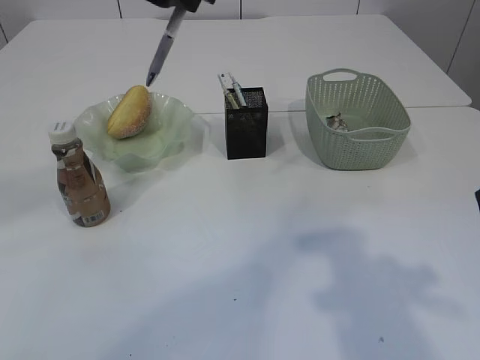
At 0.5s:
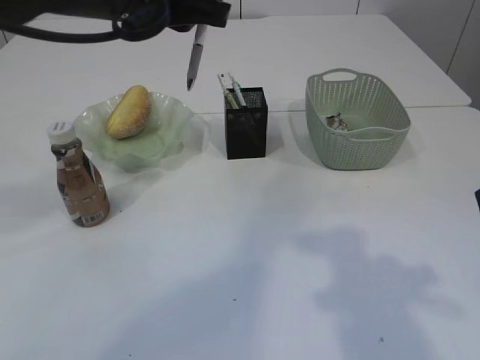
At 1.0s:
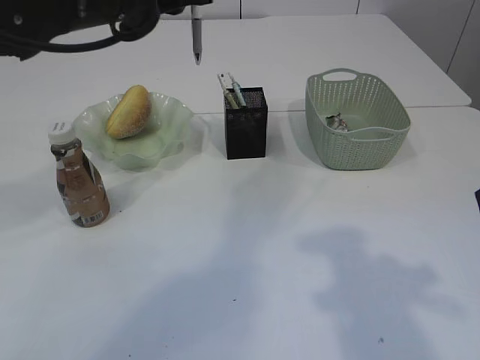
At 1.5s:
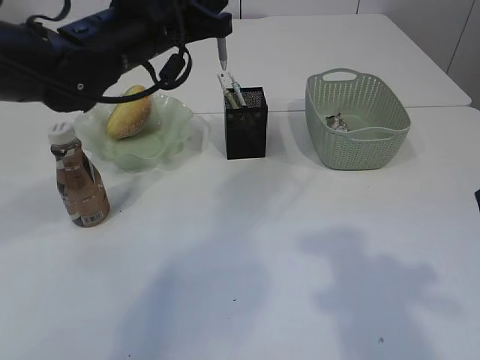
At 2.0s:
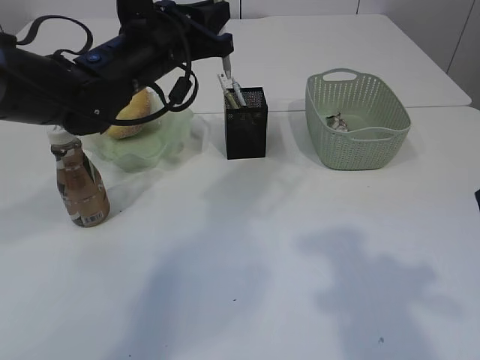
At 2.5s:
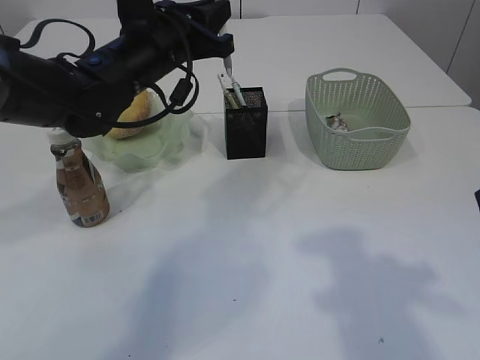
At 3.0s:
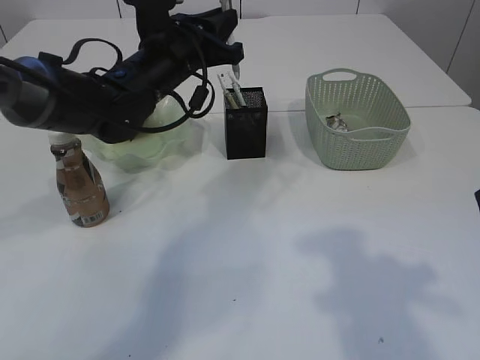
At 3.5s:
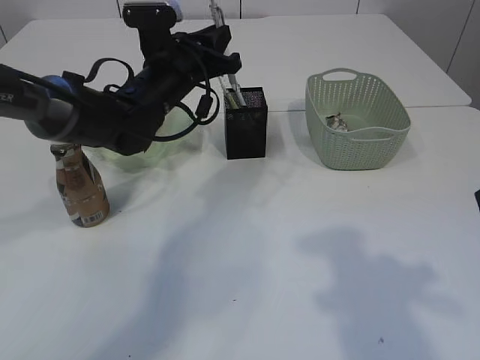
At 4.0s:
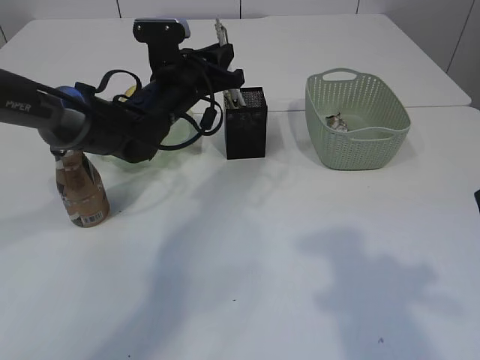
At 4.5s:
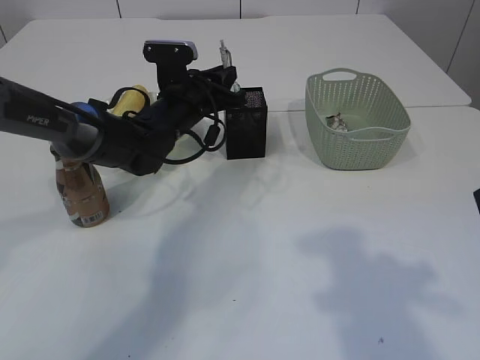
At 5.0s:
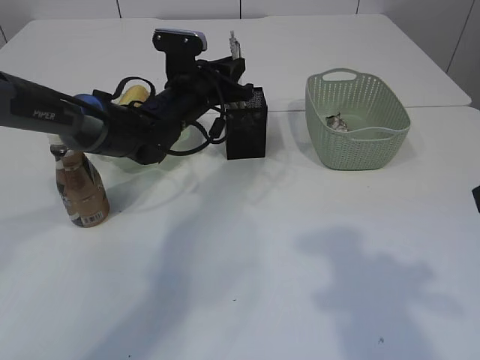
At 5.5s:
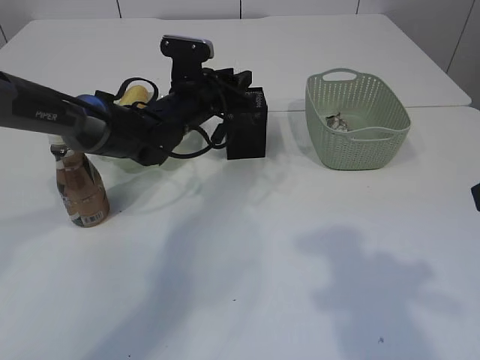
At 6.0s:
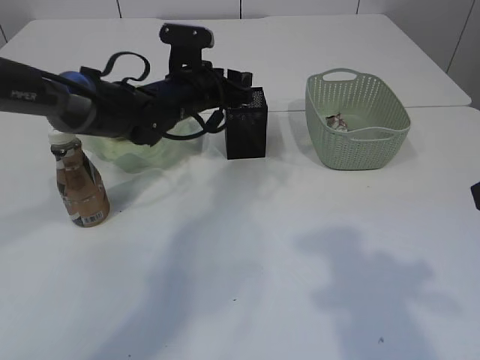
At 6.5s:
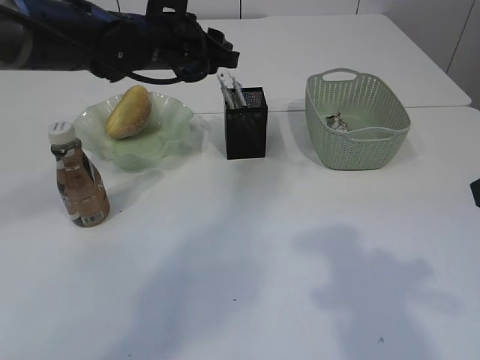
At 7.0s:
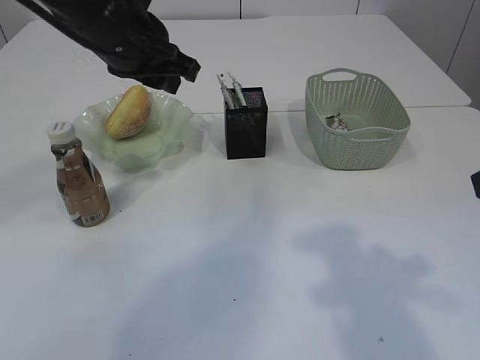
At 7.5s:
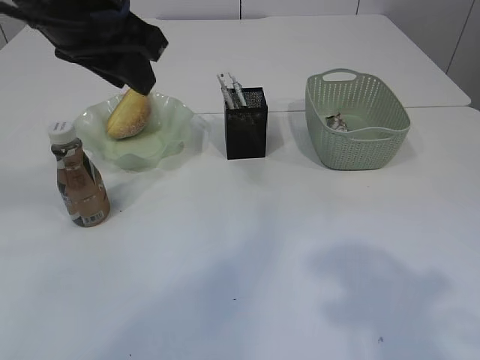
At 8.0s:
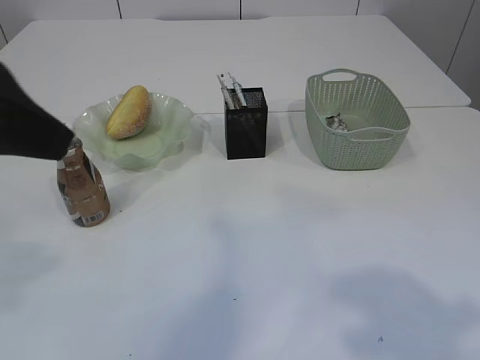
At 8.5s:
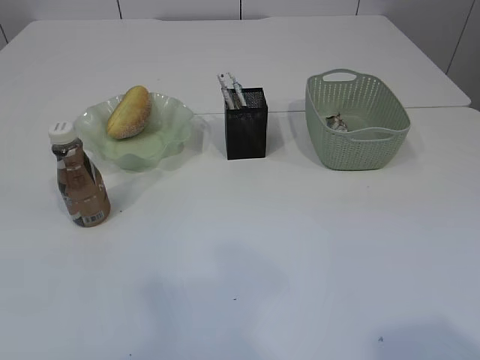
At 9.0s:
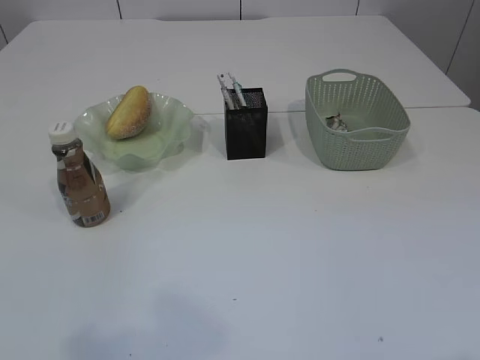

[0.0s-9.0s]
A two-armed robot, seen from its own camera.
Step, 0.0s to 6.0s: Place the pen into the pen holder.
0.0s to 2.0s: The left gripper moves downward and forward, roughly 15 cm.
2.0s to 4.5s: The left gripper is displaced downward and forward by some 10 cm.
4.5s to 7.0s: The left gripper moves upward and backward, approximately 15 cm, and opens and closes again.
7.0s to 9.0s: The right gripper moves backward, roughly 15 cm. Meanwhile the left gripper goes about 40 cm backward and to the left.

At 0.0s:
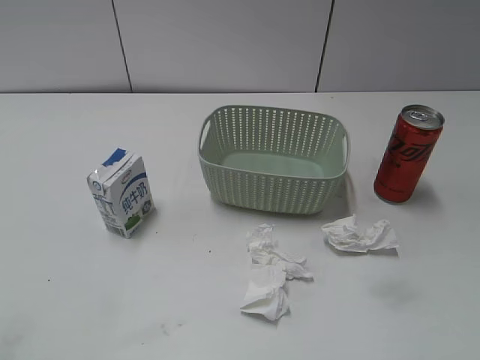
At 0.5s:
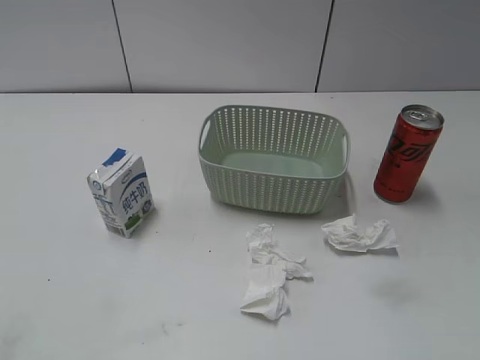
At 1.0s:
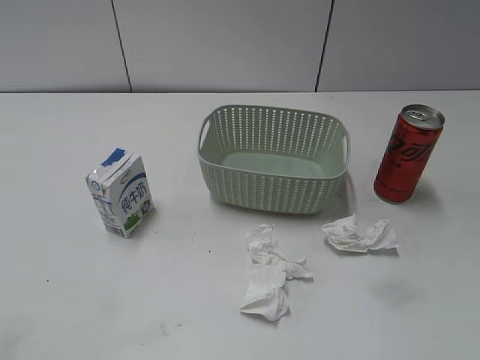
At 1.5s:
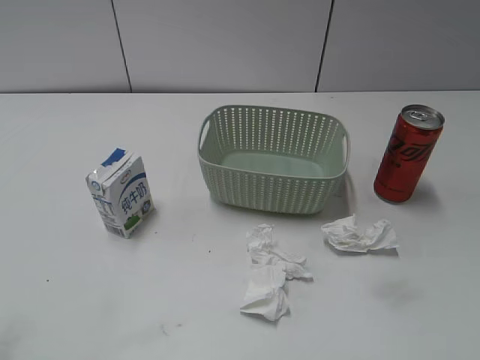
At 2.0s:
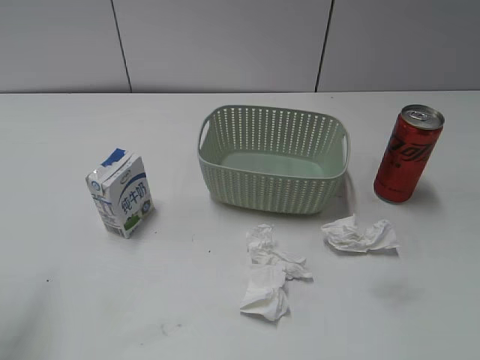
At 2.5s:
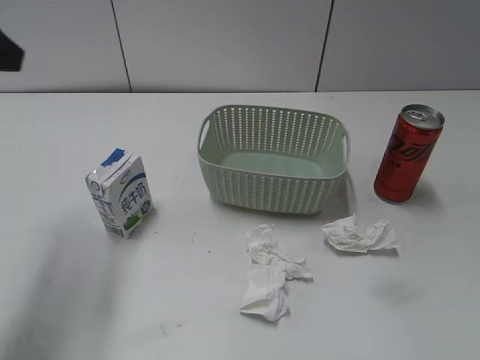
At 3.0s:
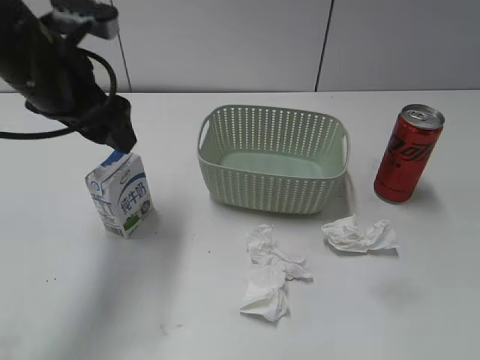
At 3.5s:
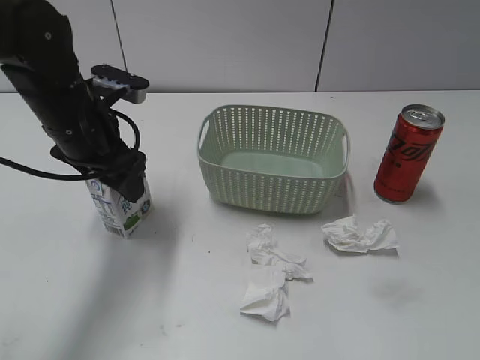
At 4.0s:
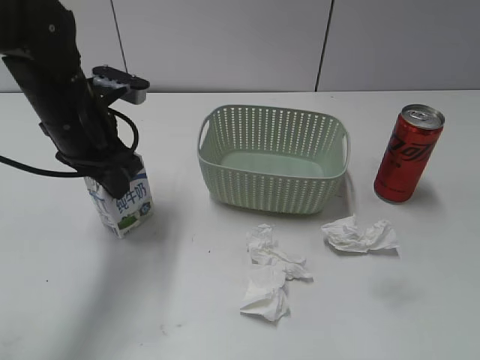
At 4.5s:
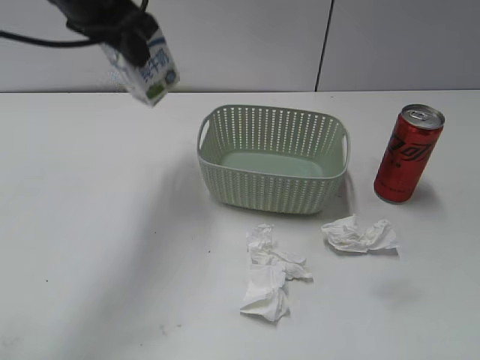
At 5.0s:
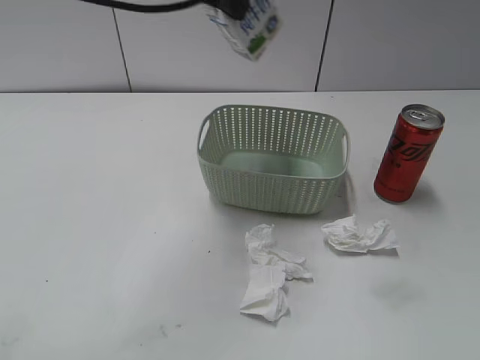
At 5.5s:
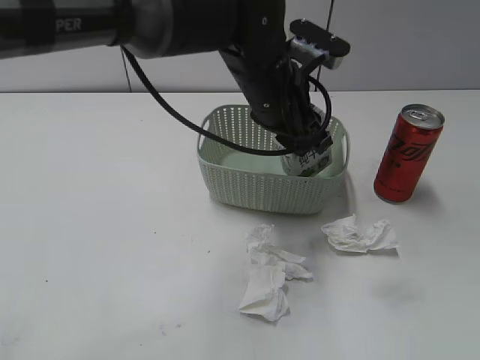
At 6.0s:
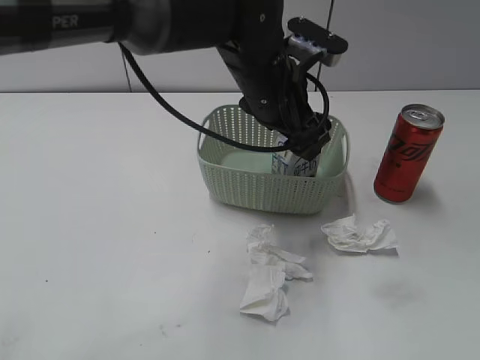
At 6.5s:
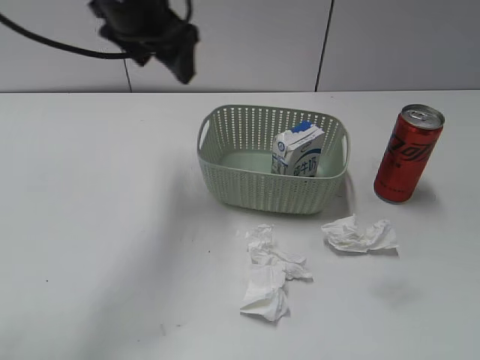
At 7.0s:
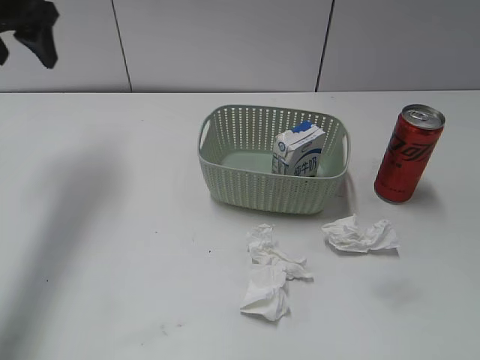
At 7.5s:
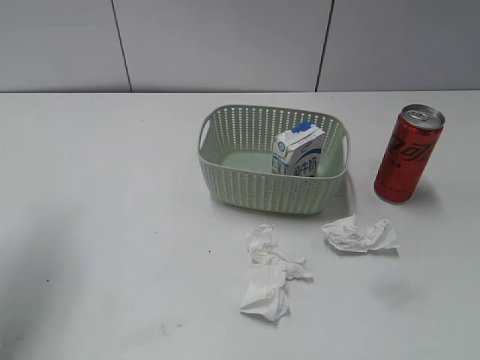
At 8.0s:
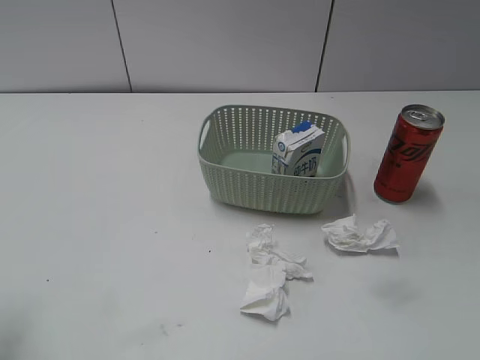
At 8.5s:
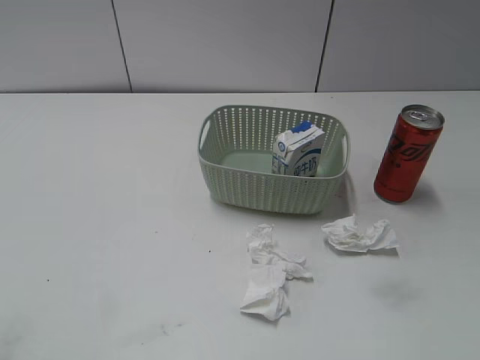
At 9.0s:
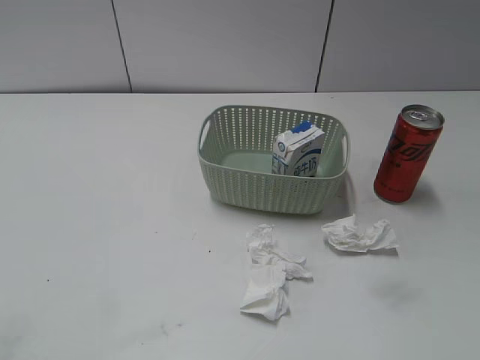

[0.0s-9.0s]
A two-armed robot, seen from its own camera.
Step, 2.5s to 3.5s: Grasp the milk with left gripper.
Step, 4.0s to 6.0s: Place the milk in the basket with left gripper.
2.0s to 4.5s: The left gripper travels forward and to the right by some 30 cm, and closes its fingers.
4.5s to 7.0s: The left gripper heads to the left, covering about 10 cm, and opens.
7.0s to 9.0s: The left gripper heads backward, covering roughly 40 cm.

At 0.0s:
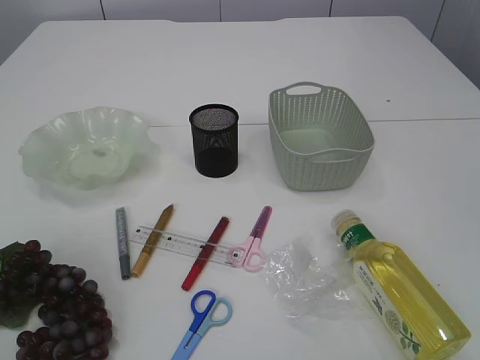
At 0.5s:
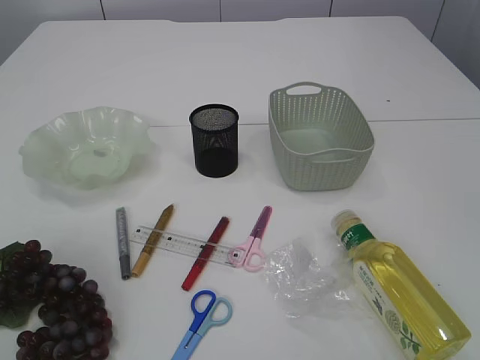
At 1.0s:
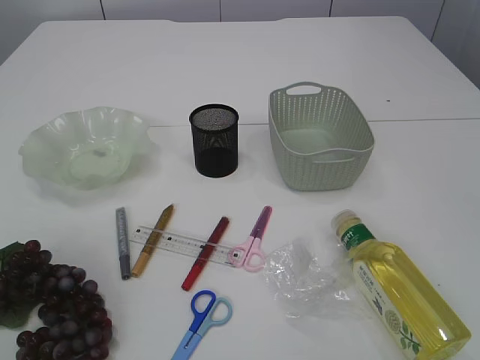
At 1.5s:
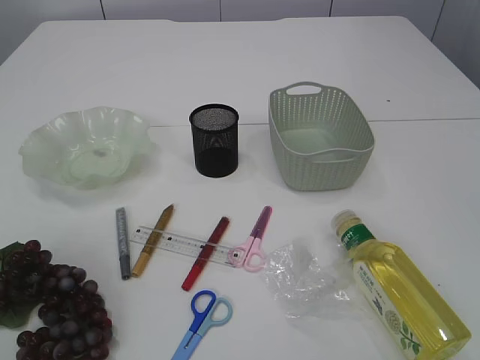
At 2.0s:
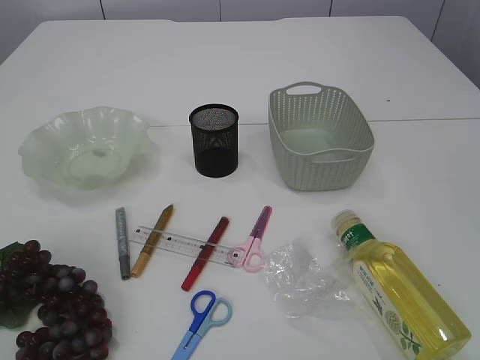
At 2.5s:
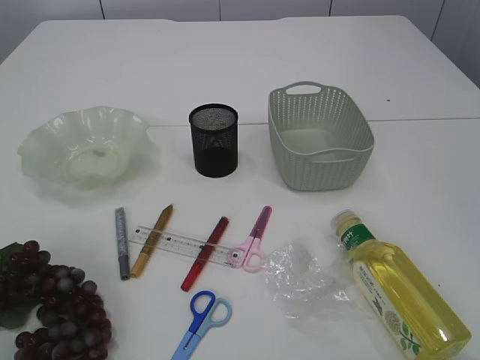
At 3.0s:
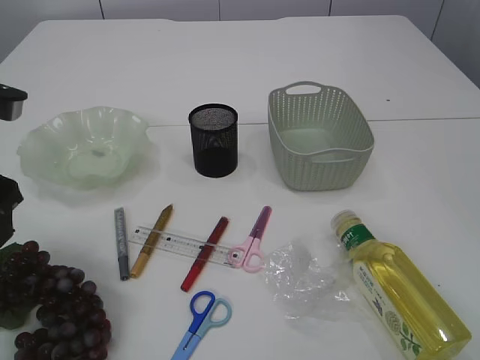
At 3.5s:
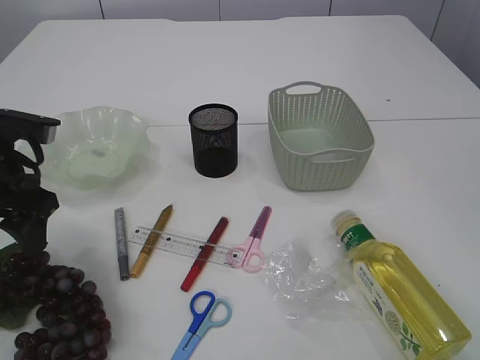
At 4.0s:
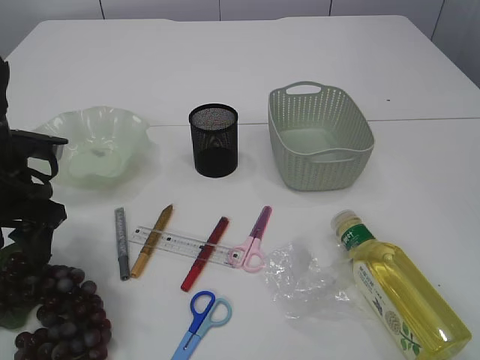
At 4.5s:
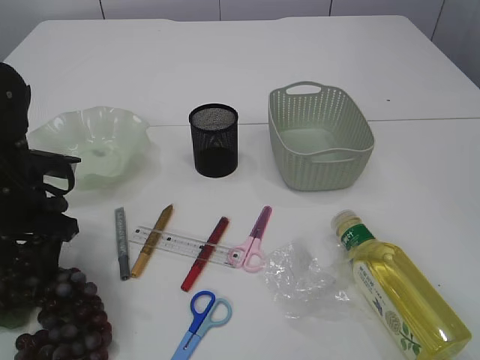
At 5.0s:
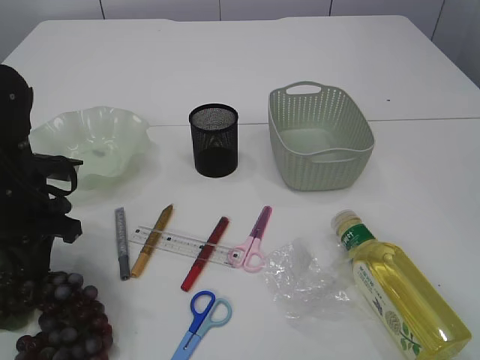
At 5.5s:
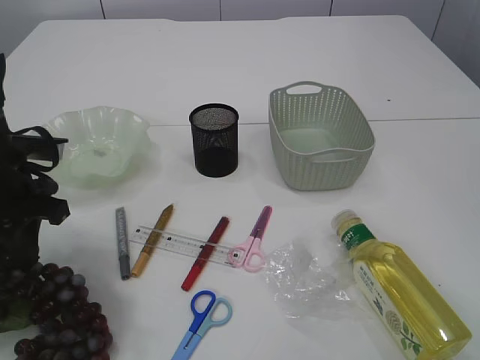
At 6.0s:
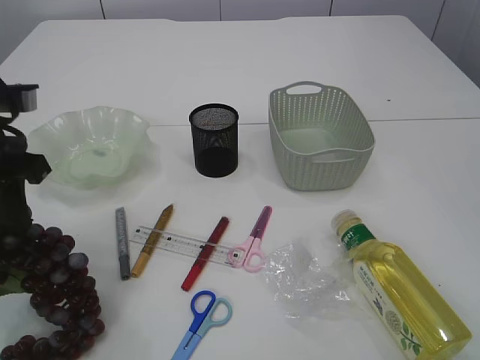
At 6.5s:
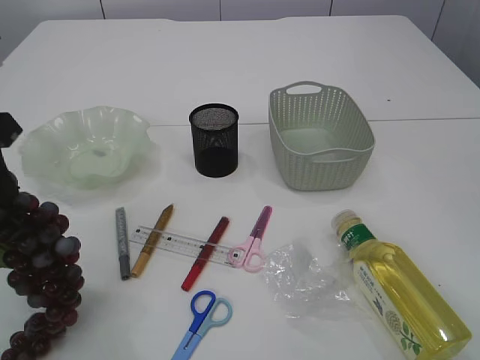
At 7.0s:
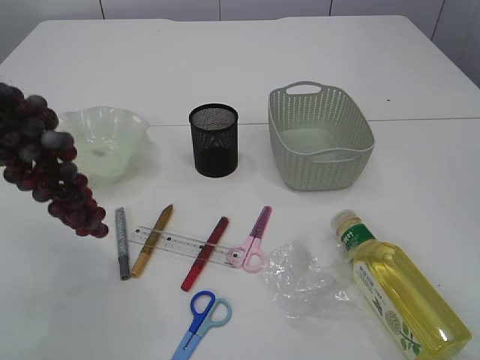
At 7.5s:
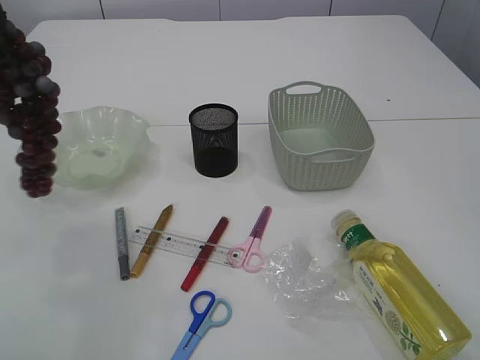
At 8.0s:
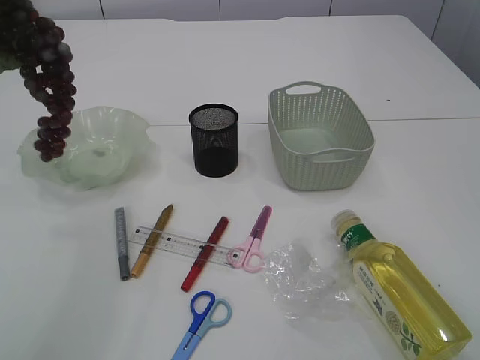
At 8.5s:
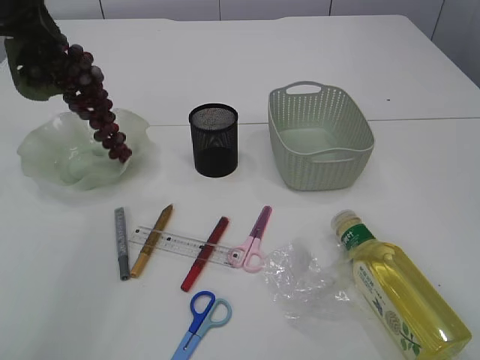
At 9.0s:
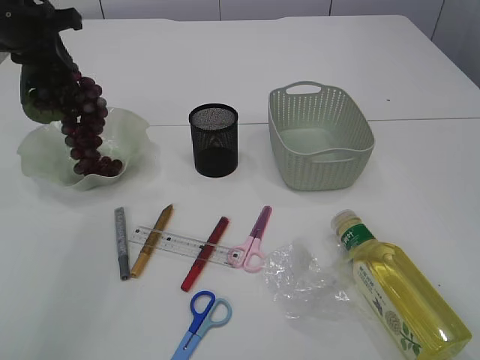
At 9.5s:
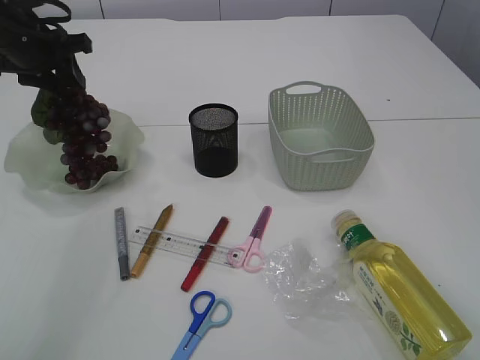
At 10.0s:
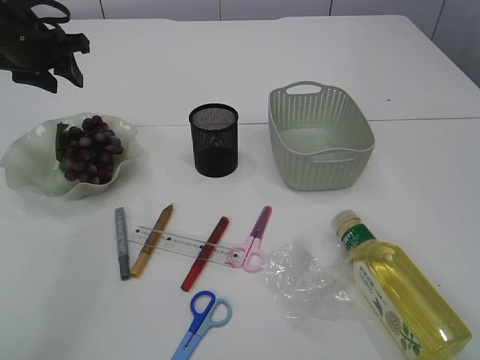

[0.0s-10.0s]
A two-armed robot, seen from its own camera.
Step, 0.0s to 7.0s: Pick up the grapes.
2.0s to 4.0s: The left gripper moves forward and downward, some 30 cm, and opens up.
4.0s to 6.0s: The left gripper moves upward, about 5 cm, and closes.
6.0s to 8.0s: The left gripper moves upward and forward, about 15 cm.
8.0s to 10.0s: The left gripper goes some 15 cm downward and forward, and opens.
